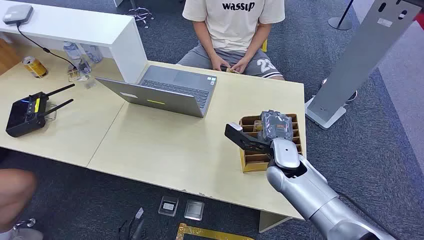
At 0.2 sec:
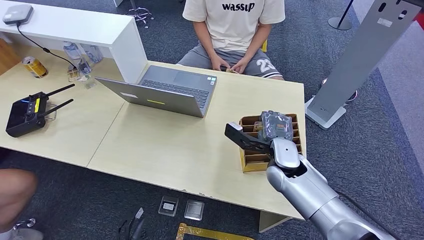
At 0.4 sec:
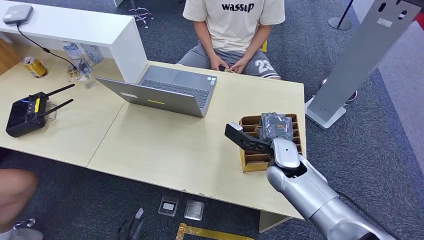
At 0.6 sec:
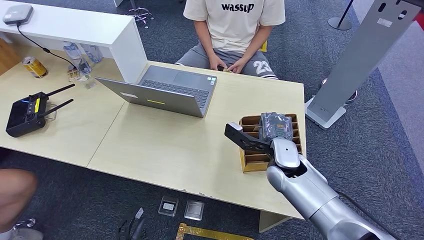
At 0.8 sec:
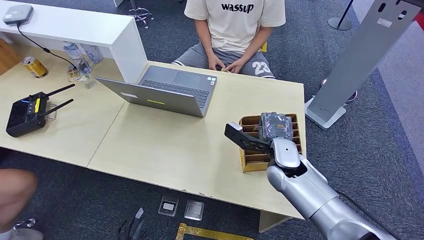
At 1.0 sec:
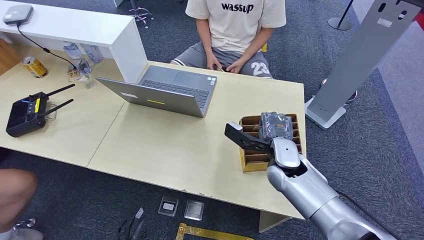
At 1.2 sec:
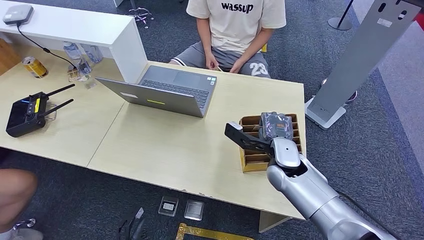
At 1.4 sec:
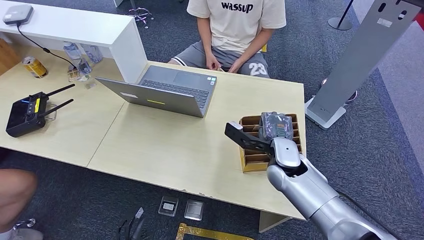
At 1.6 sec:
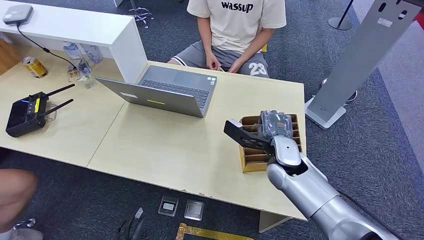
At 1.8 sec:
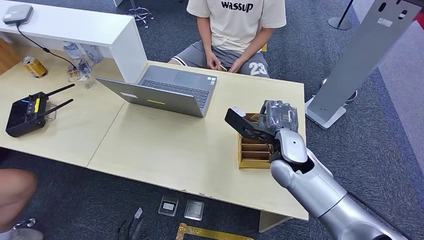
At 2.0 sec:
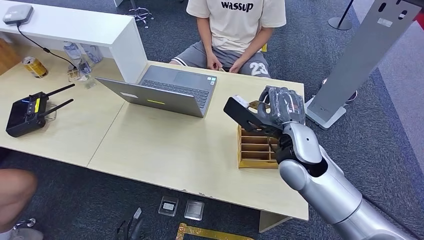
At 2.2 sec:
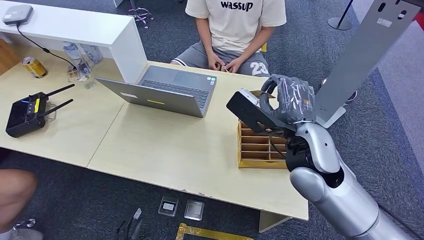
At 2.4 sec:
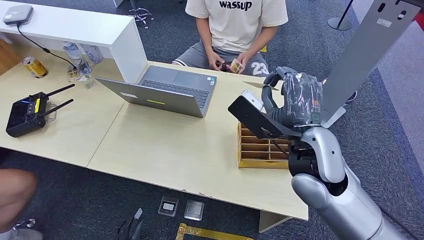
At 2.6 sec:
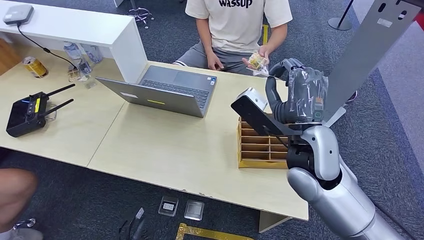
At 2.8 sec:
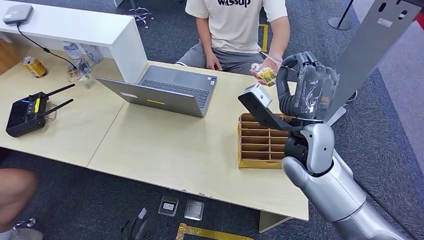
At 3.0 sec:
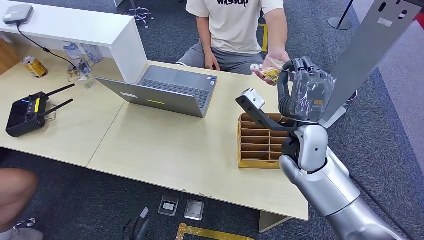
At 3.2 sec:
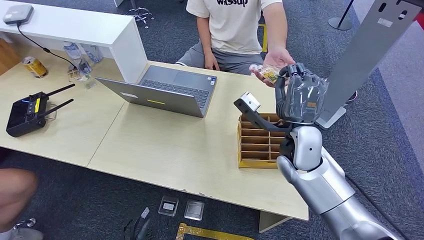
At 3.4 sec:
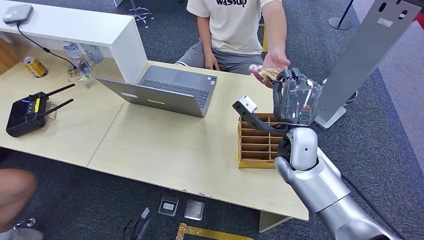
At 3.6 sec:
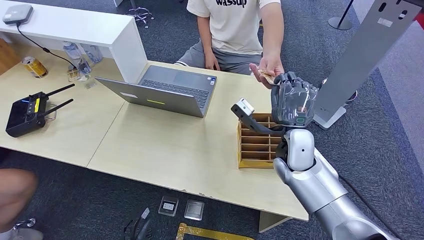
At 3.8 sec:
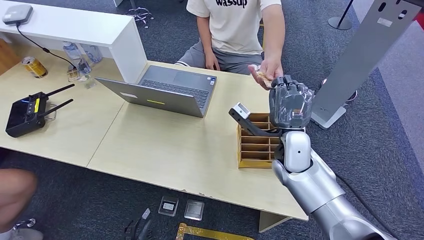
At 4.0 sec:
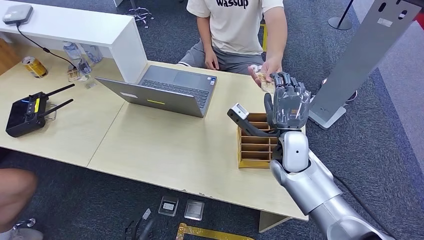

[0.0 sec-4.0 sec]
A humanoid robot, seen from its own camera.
Step, 0.0 sec to 1.8 sec: Pick up the room card from the card holder.
Step, 3.0 sec to 4.0 sec: Hand the room card to the target.
1.4 sec to 2.6 sec: The right hand moves upward, about 15 cm.
2.6 sec to 4.0 sec: The right hand heads downward, covering some 10 cm.

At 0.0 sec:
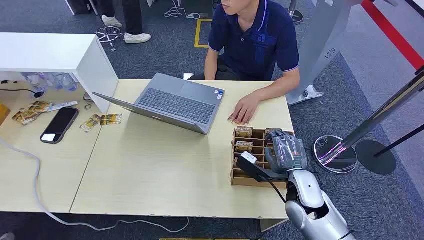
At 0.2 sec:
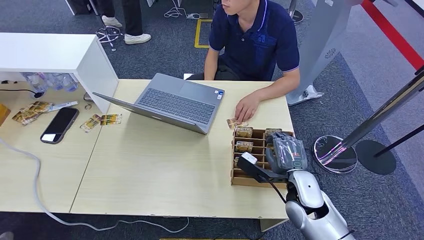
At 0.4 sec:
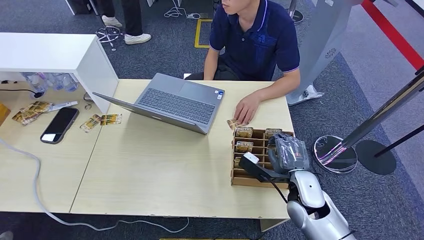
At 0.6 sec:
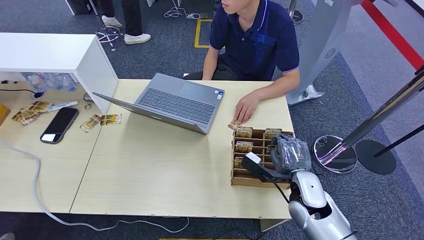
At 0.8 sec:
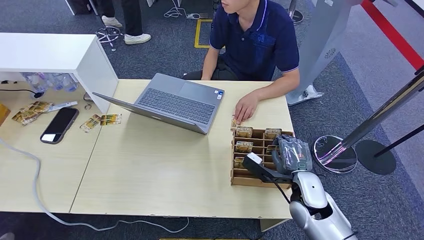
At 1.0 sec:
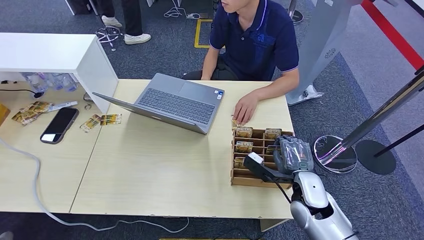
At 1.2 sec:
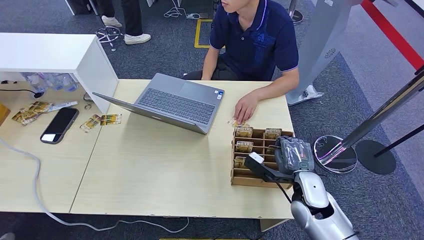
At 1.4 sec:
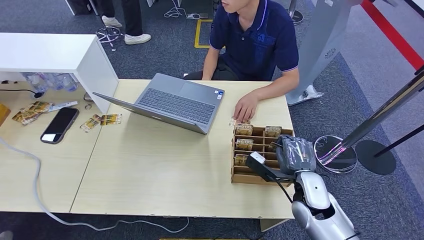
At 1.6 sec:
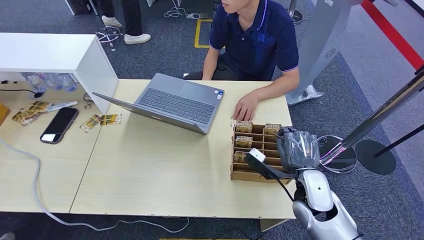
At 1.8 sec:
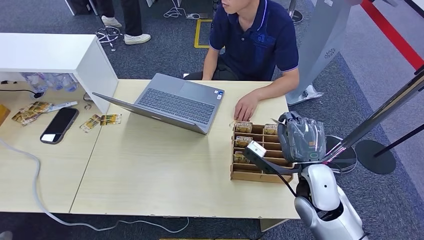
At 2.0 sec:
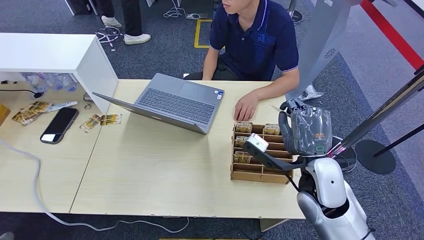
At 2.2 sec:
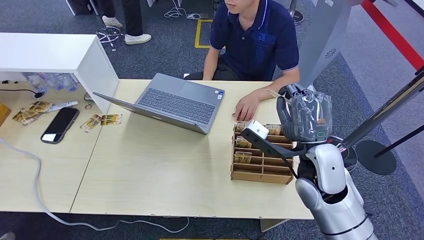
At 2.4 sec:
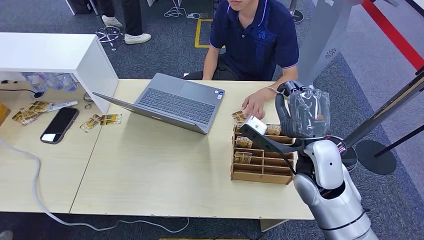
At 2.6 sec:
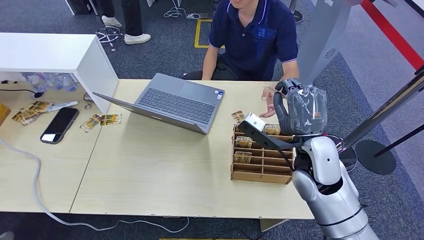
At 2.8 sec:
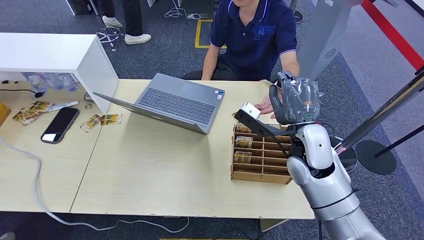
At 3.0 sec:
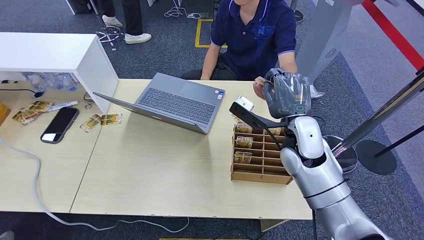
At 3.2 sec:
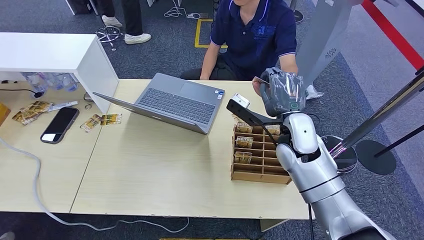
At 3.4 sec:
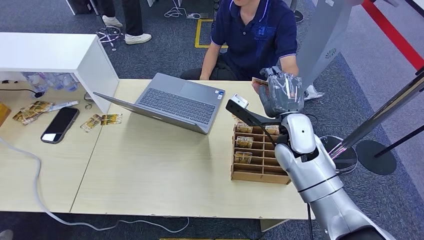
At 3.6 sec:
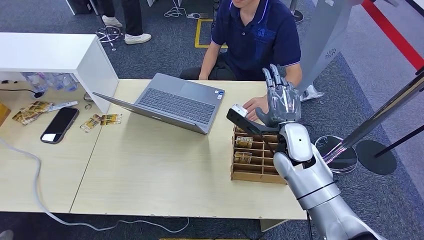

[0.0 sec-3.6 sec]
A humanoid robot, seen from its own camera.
Step, 0.0 sec to 1.8 sec: Pick up the room card from the card holder.
Step, 2.0 sec to 3.6 sec: Hand the room card to the target.
1.8 sec to 3.6 sec: The right hand travels forward by some 10 cm.
